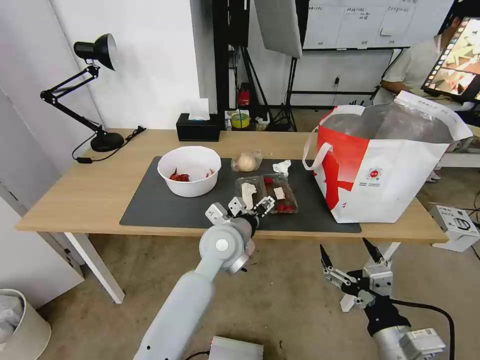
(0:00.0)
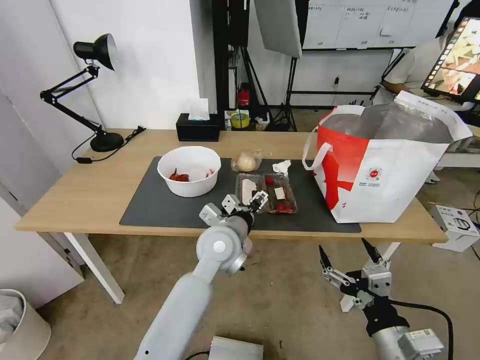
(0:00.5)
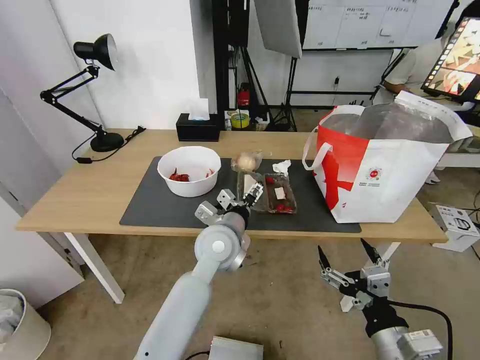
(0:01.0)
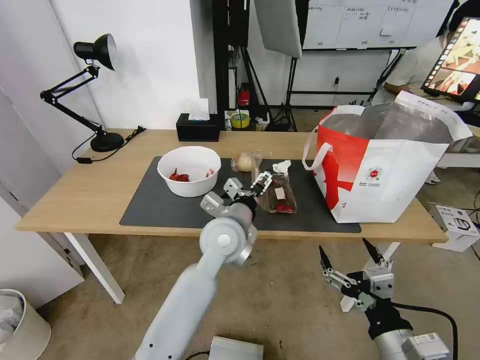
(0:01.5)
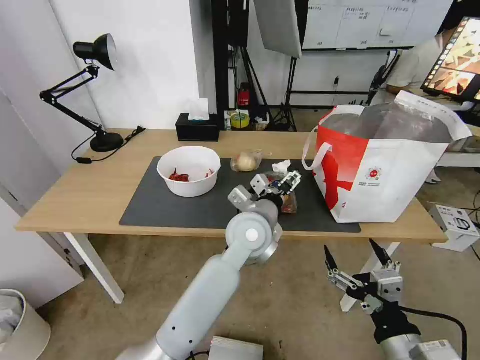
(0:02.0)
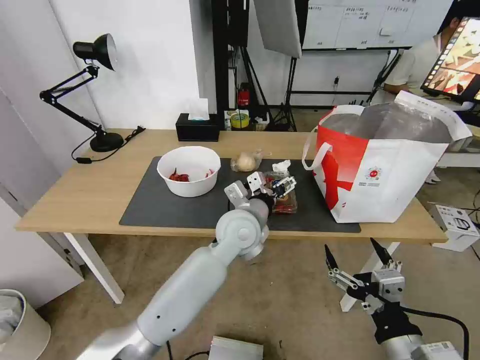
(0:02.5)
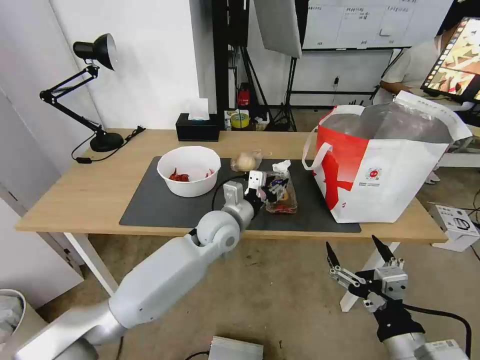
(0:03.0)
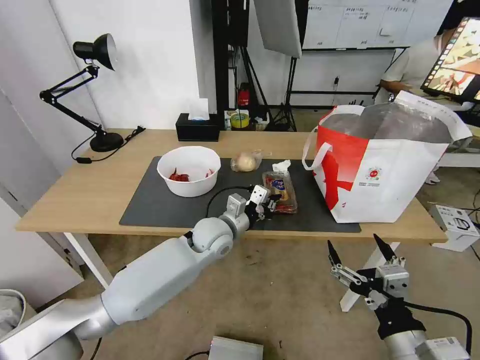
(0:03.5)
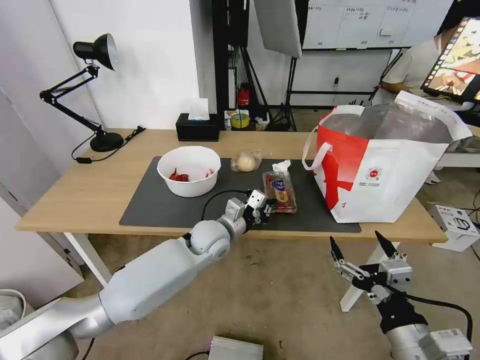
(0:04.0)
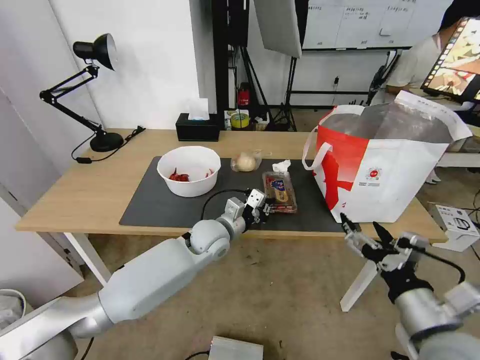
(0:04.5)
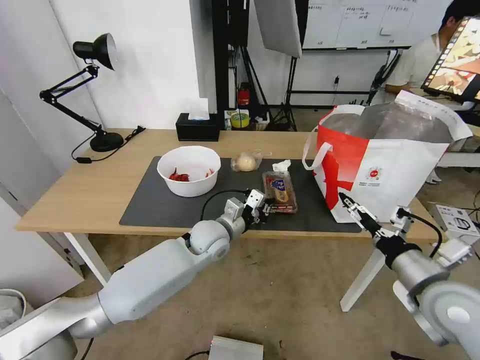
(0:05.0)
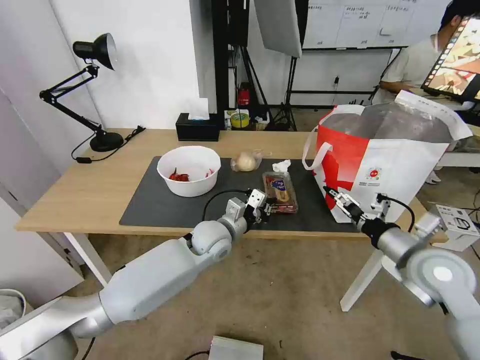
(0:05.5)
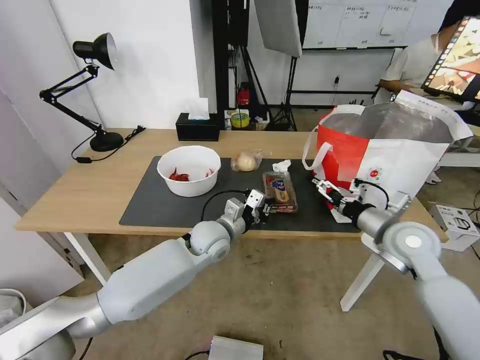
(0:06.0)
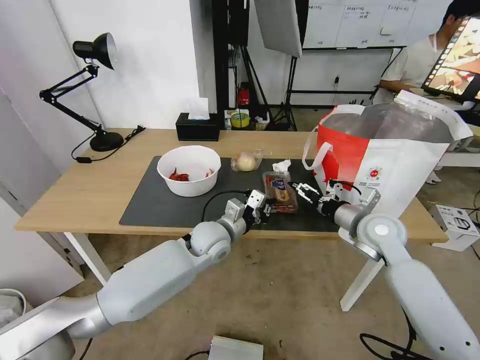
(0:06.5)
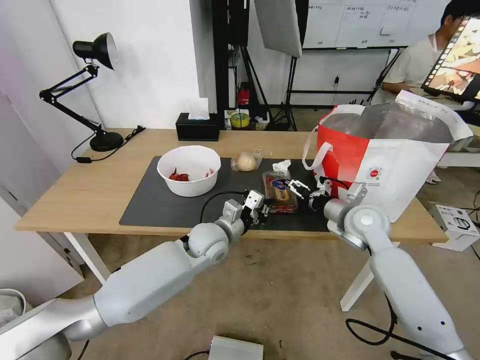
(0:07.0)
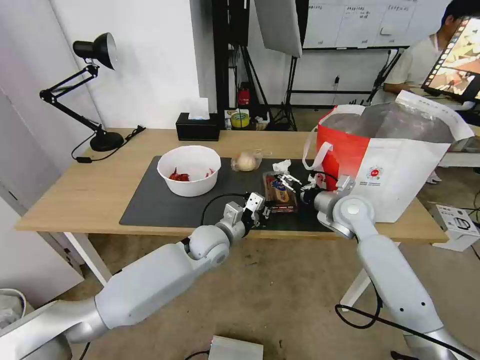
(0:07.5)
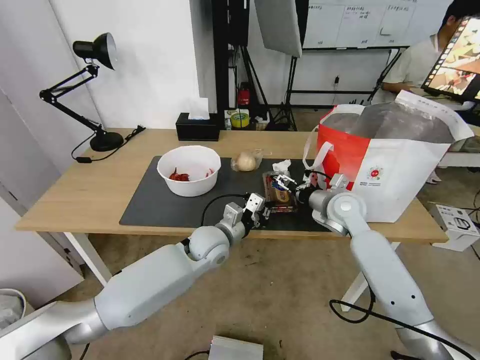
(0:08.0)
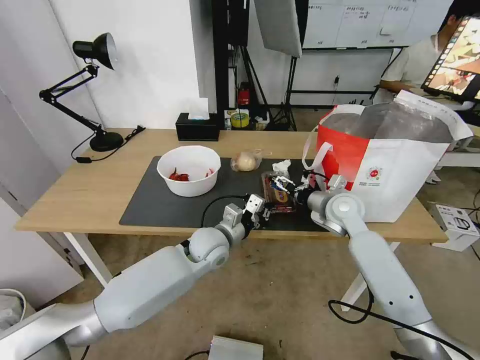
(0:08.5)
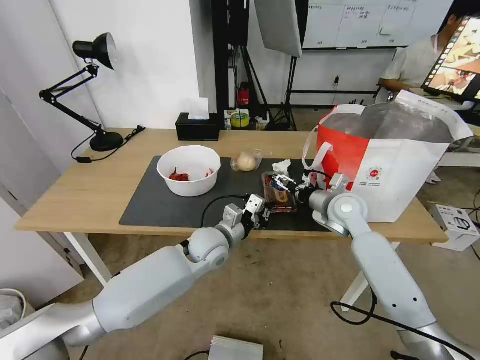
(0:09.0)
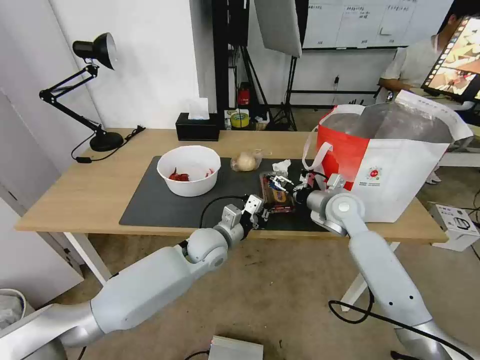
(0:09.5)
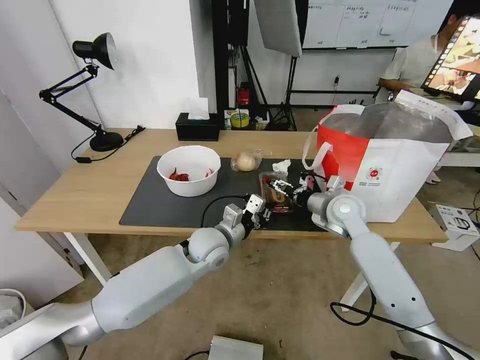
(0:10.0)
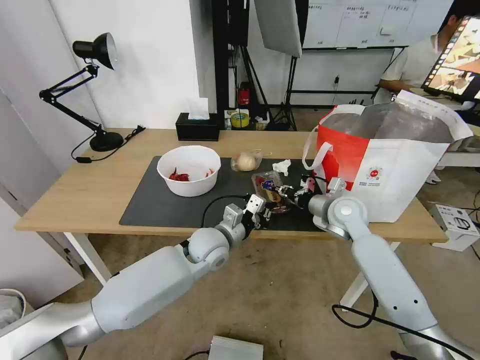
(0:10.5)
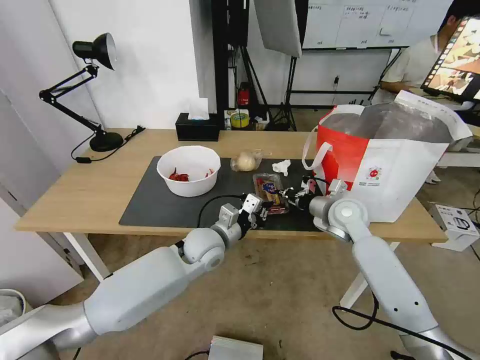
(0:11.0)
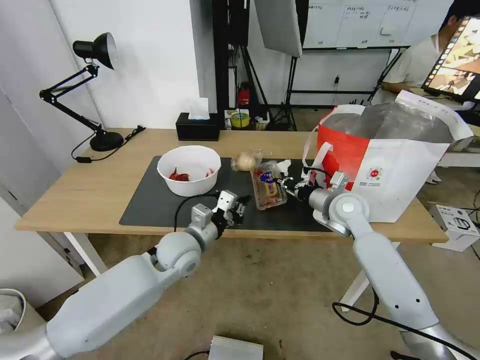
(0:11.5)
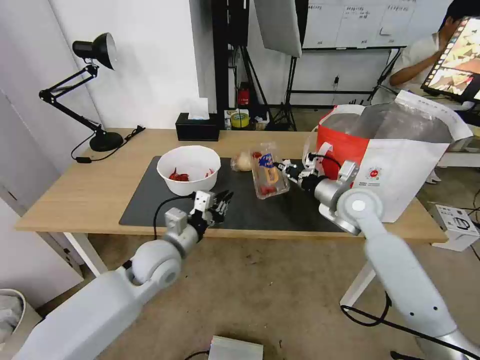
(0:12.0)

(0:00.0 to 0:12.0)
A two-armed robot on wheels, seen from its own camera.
Task of the whole recording: Pick up the trash from the table and place it into the takeout bag.
0:00.0 - 0:02.0: The left gripper is displaced to the right by about 5 cm.
0:02.0 - 0:04.0: The left gripper is displaced to the left and downward by roughly 15 cm, and closes its fingers.
0:04.0 - 0:06.0: The right gripper is displaced forward by about 25 cm.
0:06.0 - 0:08.0: The right gripper heads forward and to the left, covering about 15 cm.
0:08.0 - 0:10.0: Both grippers stay put.
0:10.0 - 0:12.0: The left gripper travels to the left by roughly 10 cm, while the right gripper closes up.

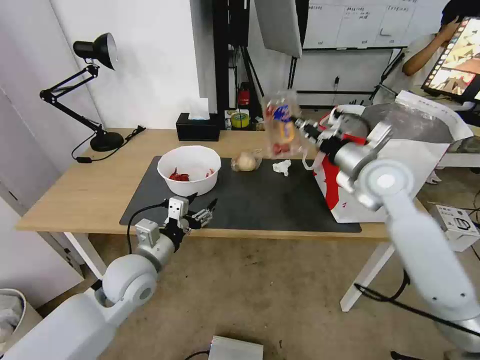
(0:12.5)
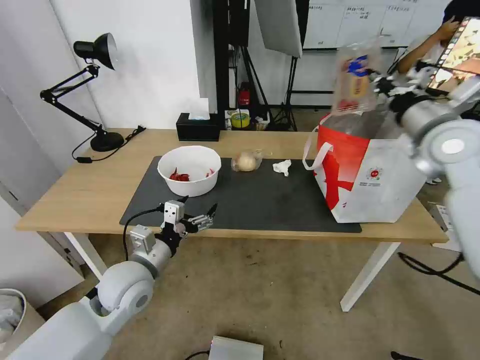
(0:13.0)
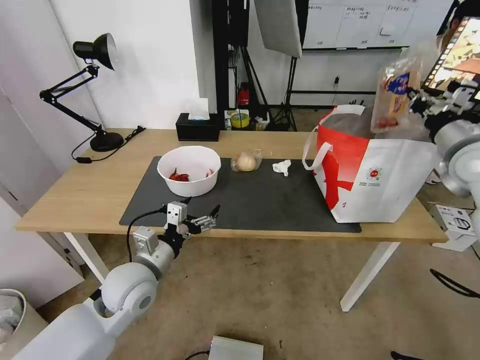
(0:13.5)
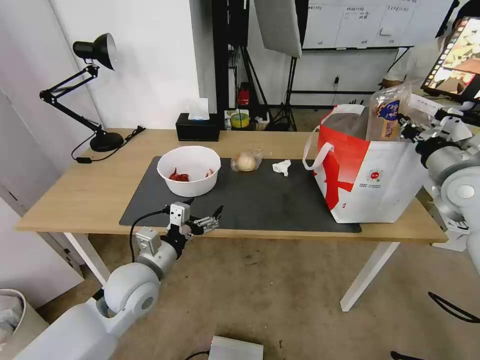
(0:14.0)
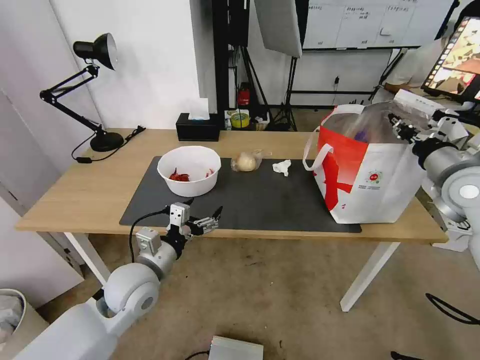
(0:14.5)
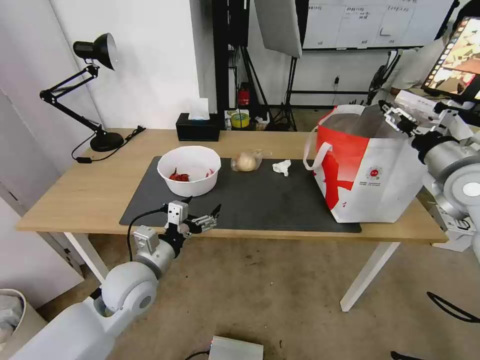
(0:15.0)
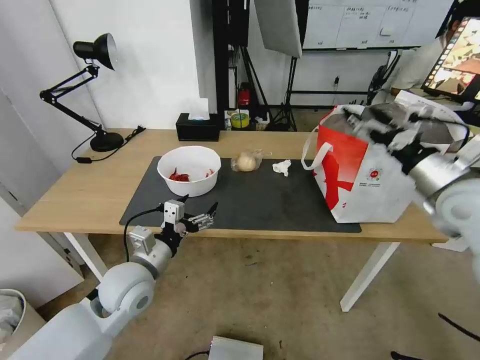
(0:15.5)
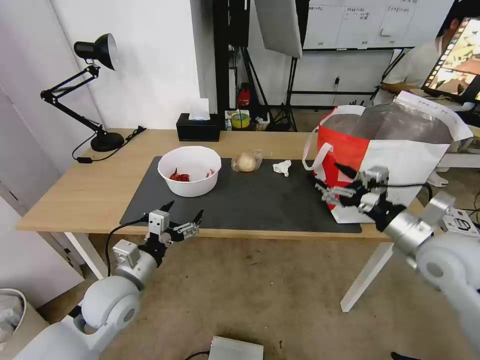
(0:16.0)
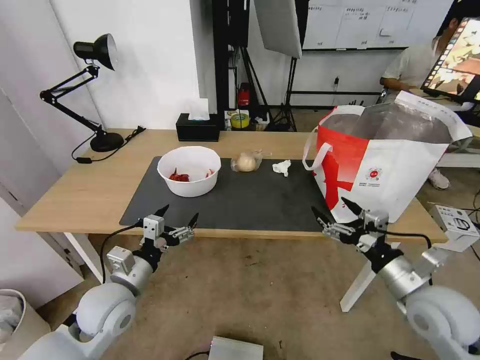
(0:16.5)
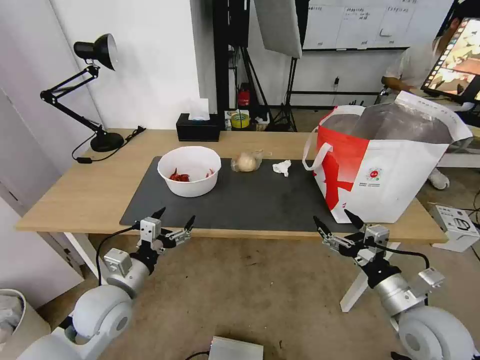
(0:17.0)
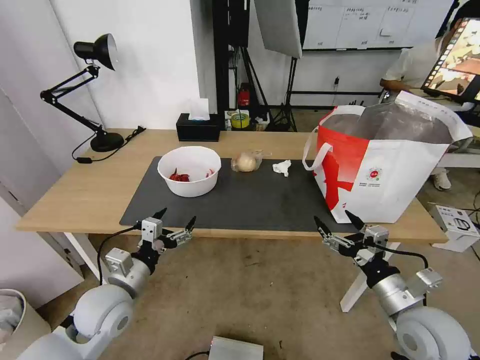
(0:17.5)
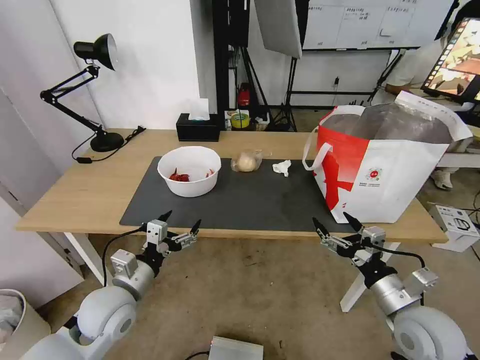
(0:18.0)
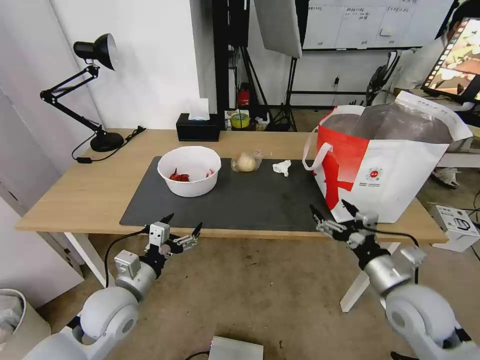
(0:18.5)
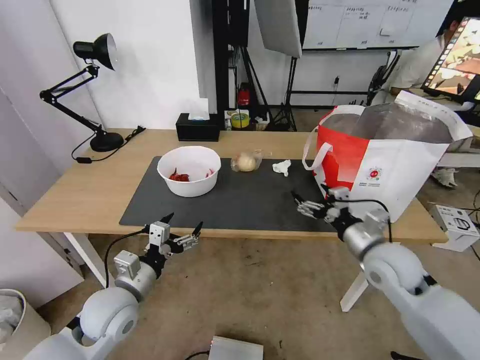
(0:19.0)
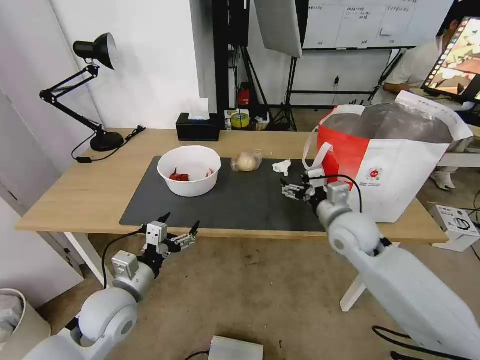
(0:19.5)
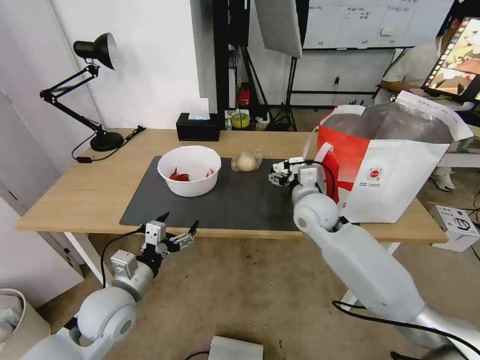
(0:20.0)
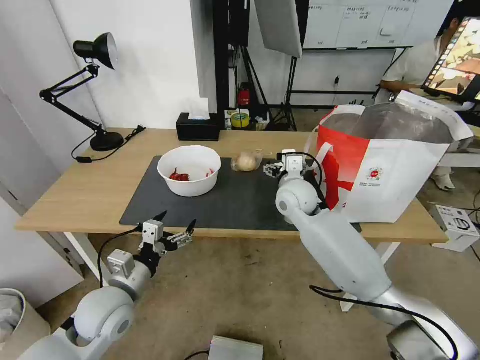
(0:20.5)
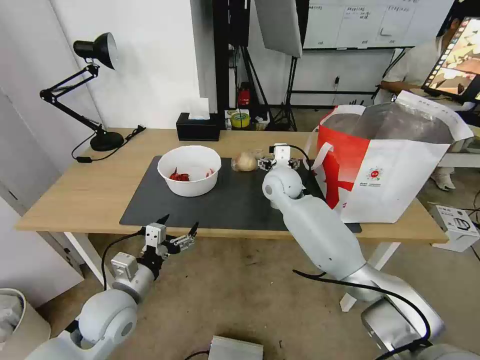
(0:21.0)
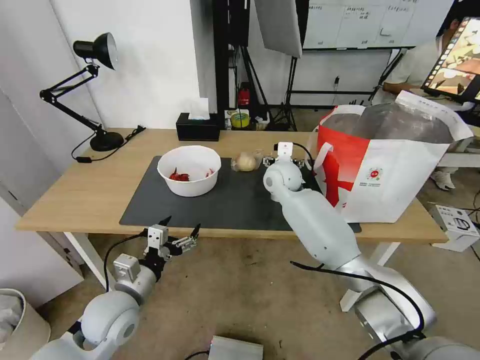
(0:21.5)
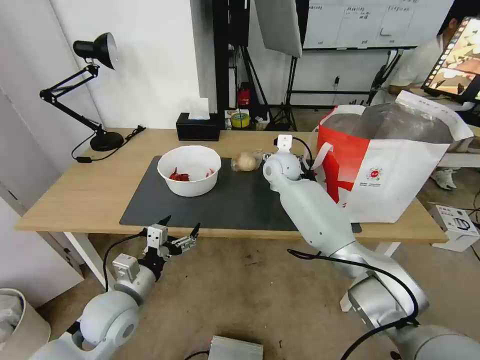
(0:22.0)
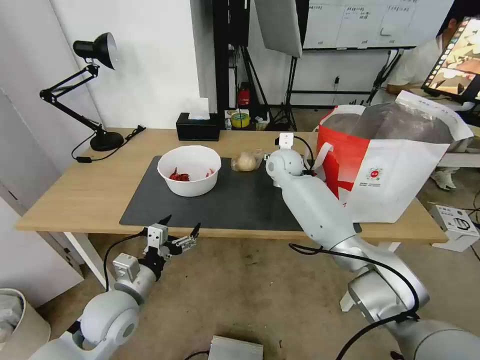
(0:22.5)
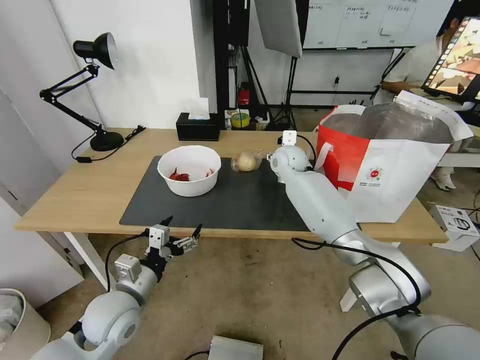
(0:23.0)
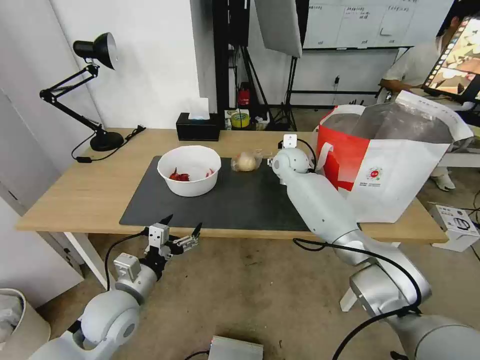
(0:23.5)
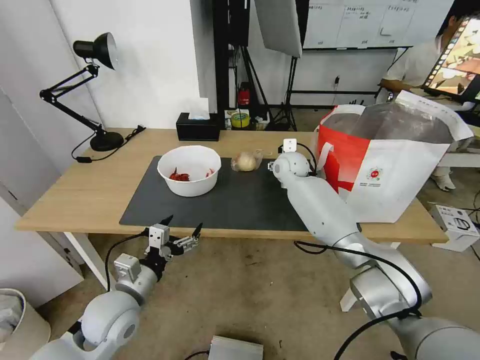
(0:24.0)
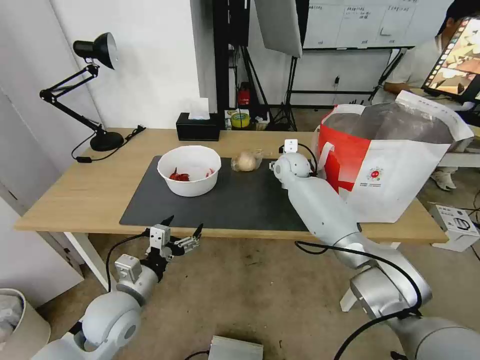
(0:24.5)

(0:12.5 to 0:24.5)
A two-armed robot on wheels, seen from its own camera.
Task of the whole recording: Pick up the trash from the table and place it into the takeout bag.
0:12.5 - 0:14.5: The right gripper moves to the right, some 15 cm.
0:14.5 - 0:16.5: The left gripper changes place by roughly 5 cm; the right gripper travels backward, downward and to the left by approximately 25 cm, and opens up.
0:16.5 - 0:18.5: There are only small adjustments of the grippers.
0:18.5 - 0:20.5: The right gripper travels forward and to the left by approximately 30 cm.
0:20.5 - 0:22.5: The right gripper moves forward, approximately 10 cm.
0:22.5 - 0:24.5: The grippers move only a little.

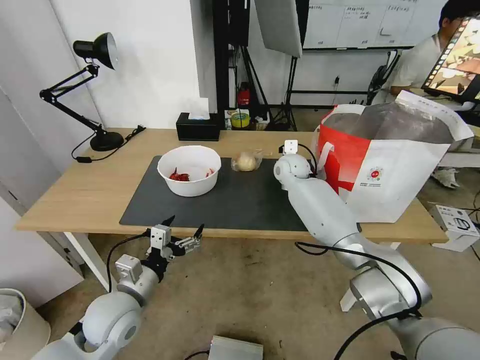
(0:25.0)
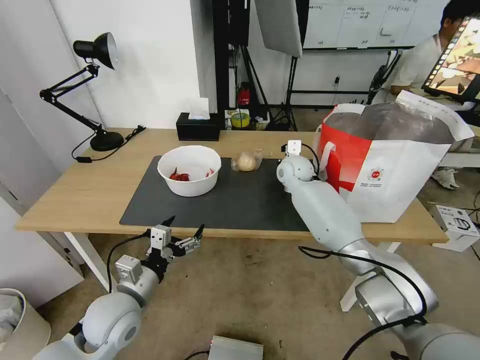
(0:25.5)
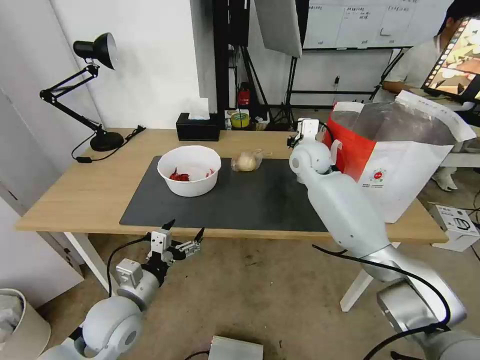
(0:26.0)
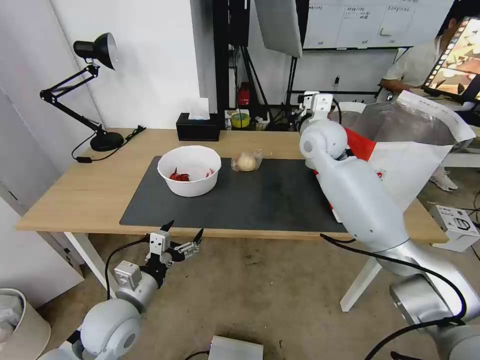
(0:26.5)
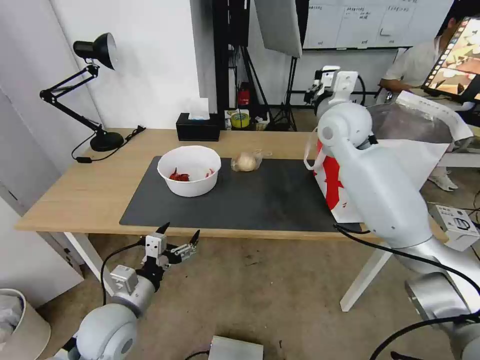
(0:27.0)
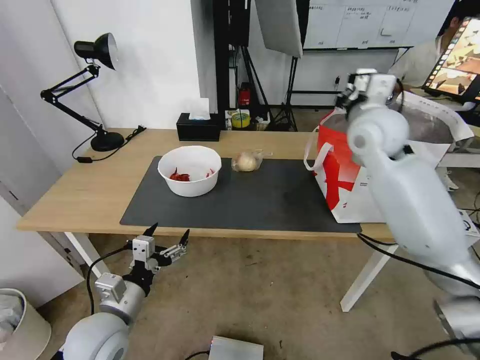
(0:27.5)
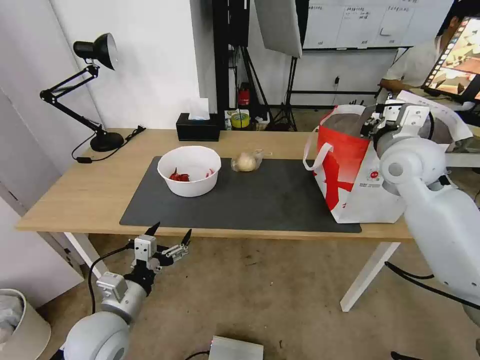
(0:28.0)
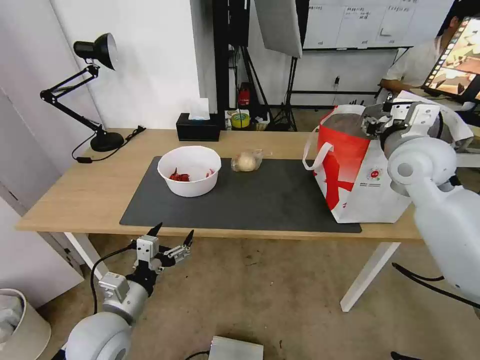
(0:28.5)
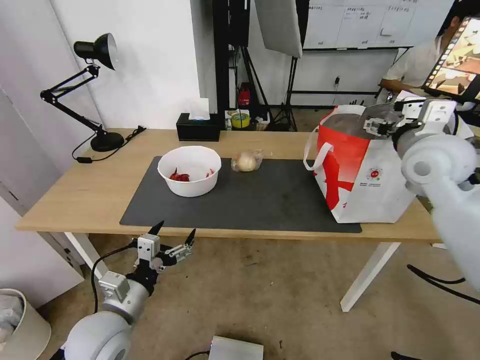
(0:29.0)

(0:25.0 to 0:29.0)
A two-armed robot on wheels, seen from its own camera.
Task of the whole recording: Pick up the trash from the table and place it into the takeout bag.
0:25.0 - 0:27.0: The right gripper goes approximately 20 cm upward and backward, and closes its fingers.
0:27.0 - 0:29.0: The right gripper goes roughly 15 cm to the right and backward, and opens.
